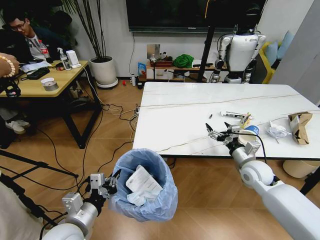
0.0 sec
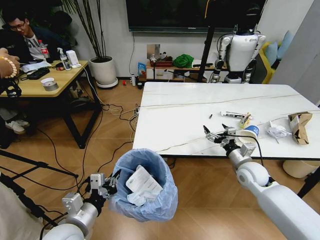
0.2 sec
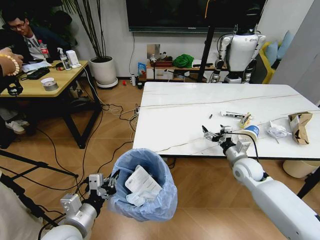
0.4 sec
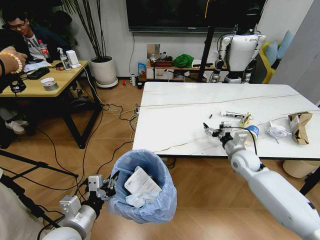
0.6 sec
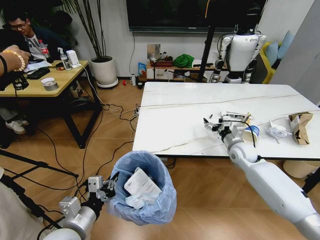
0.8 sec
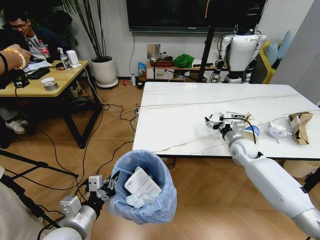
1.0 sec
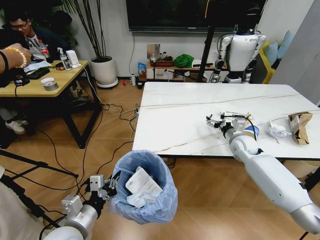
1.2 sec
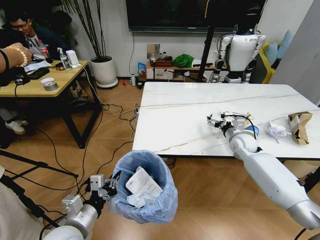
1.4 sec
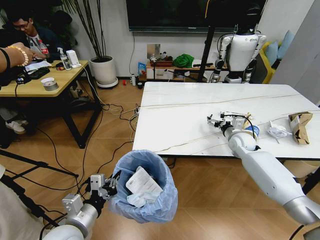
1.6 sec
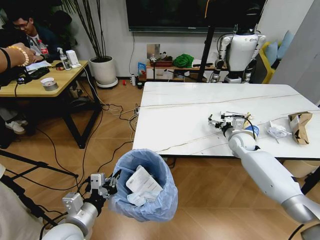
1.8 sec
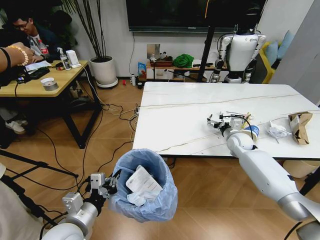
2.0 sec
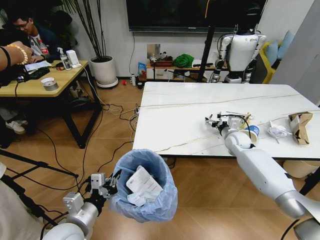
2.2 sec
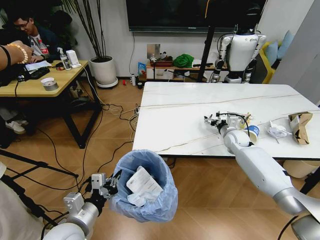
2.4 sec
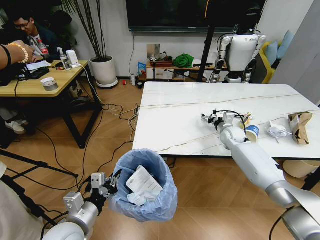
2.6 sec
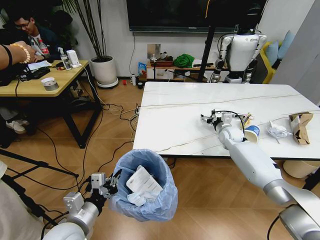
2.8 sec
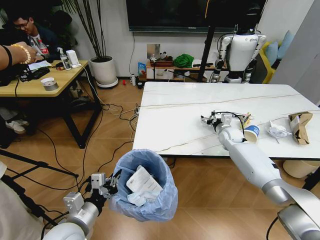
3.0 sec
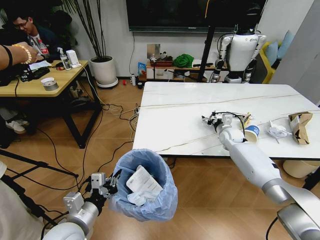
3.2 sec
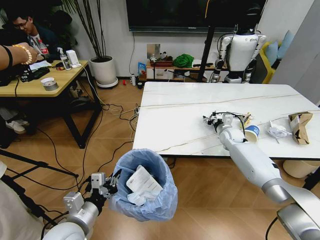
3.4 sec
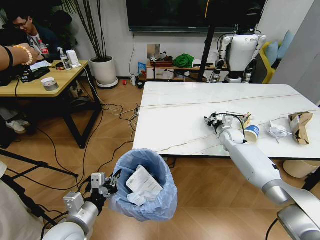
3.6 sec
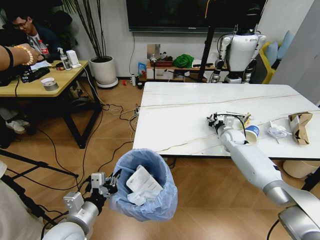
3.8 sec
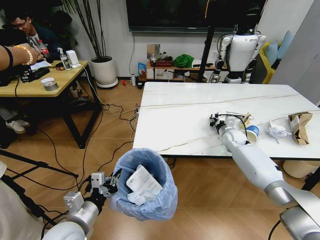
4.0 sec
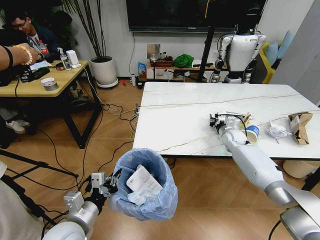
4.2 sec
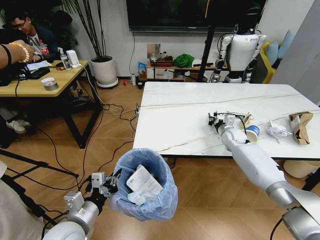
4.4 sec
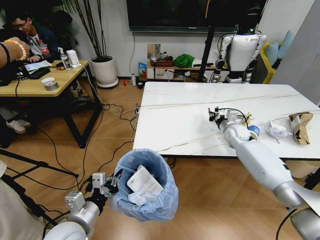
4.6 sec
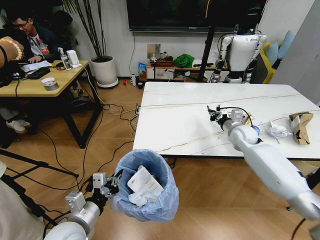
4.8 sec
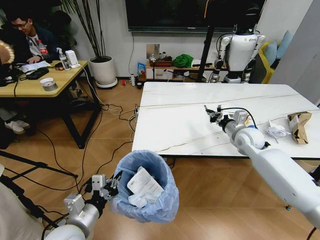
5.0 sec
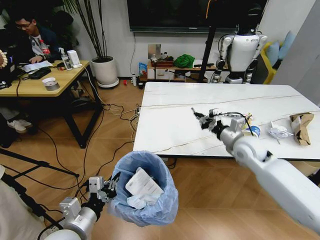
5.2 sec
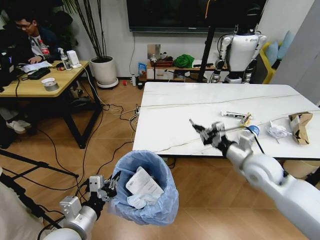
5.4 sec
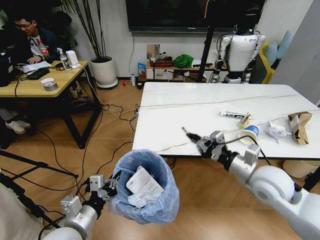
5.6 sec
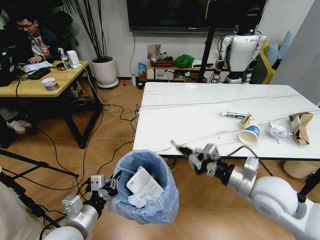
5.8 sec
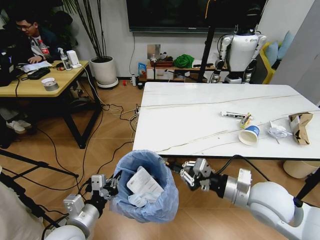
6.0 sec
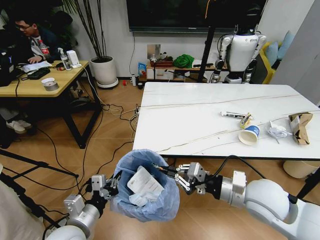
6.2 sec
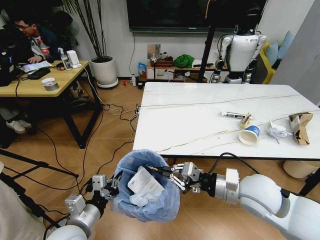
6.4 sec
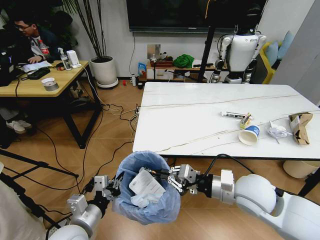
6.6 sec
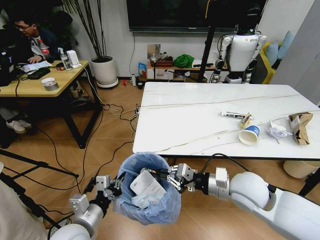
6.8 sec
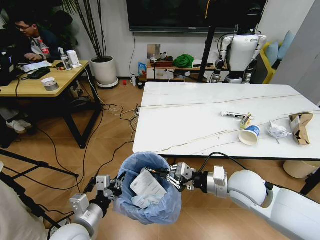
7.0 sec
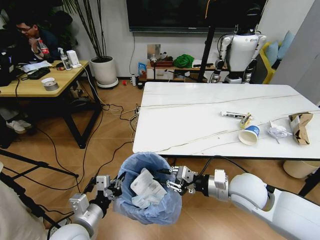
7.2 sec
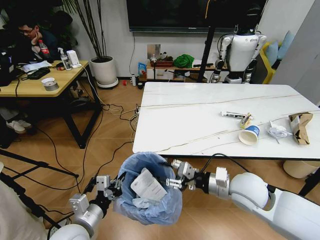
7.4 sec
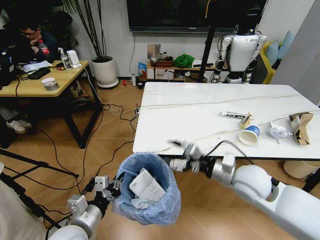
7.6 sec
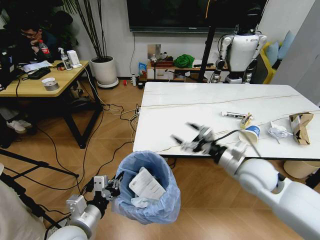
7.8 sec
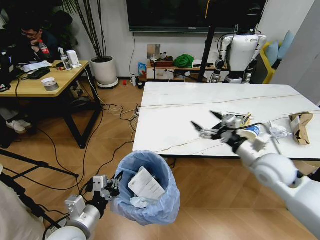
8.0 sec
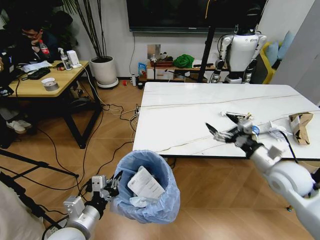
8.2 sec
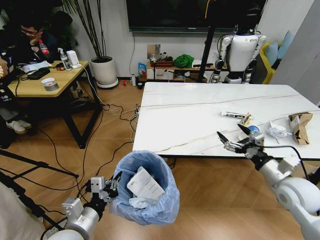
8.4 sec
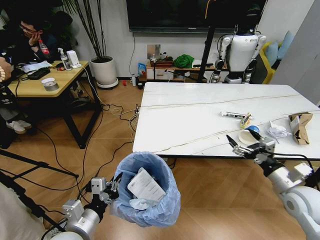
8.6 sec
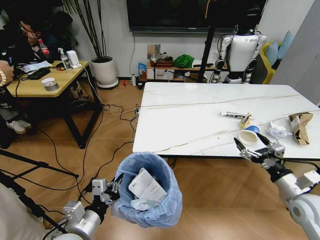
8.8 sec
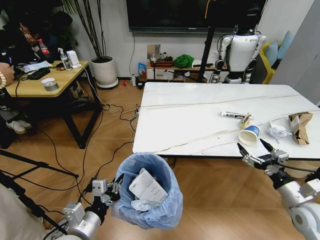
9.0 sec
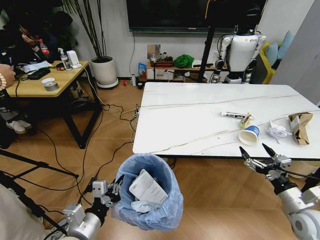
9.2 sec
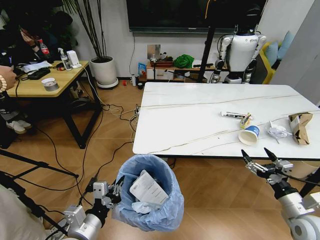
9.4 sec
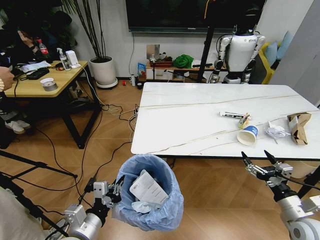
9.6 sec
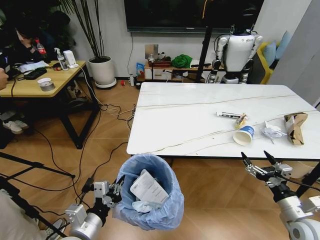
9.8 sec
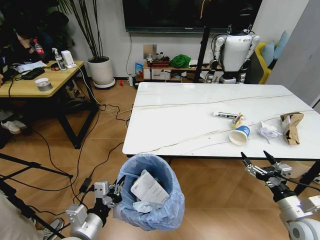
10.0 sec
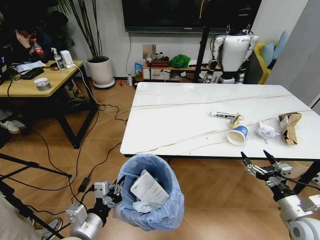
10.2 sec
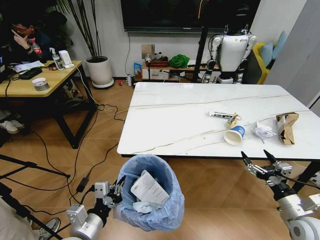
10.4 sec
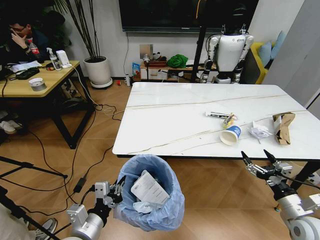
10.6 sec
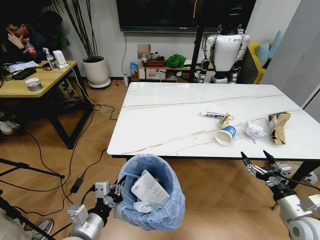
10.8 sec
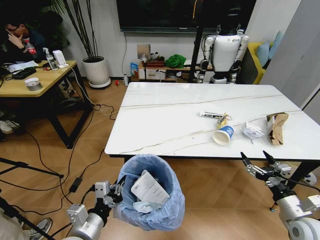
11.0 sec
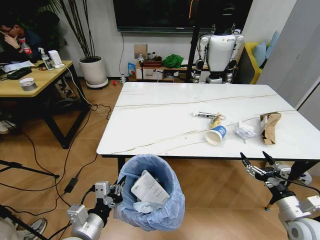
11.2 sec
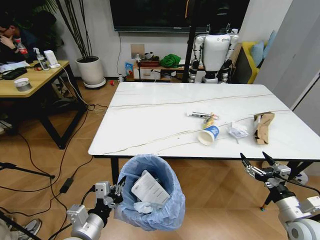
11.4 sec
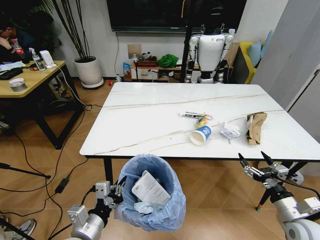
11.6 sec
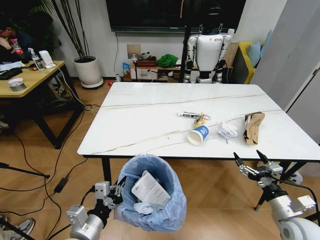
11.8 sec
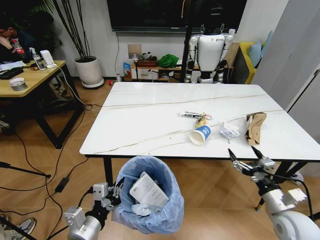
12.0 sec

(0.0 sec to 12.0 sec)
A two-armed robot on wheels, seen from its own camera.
Task of the whole recording: Pick up the trash bin and place the trash from the table into it.
0.0 sec - 1.6 sec: The right gripper shifts approximately 15 cm forward.
1.6 sec - 3.0 sec: The right gripper travels forward by some 5 cm.
3.0 sec - 4.4 sec: The right gripper closes.
4.4 sec - 6.0 sec: The right gripper goes roughly 30 cm backward.
6.0 sec - 7.6 sec: The right gripper shifts by roughly 5 cm, and opens.
7.6 sec - 9.0 sec: The right gripper shifts about 20 cm to the right, and opens.
10.4 sec - 12.0 sec: The right gripper moves approximately 5 cm.

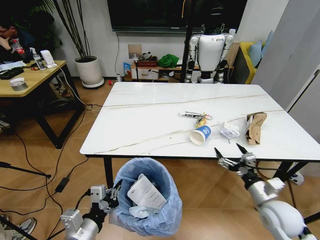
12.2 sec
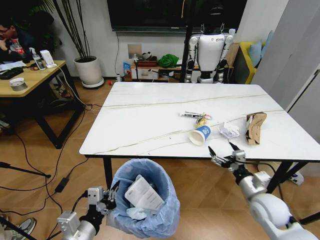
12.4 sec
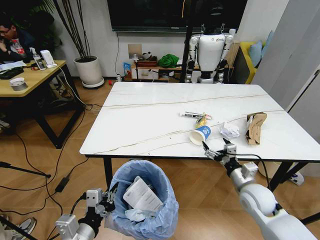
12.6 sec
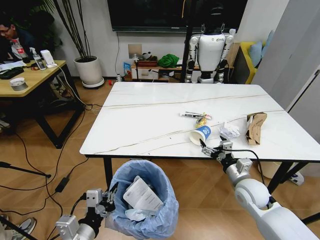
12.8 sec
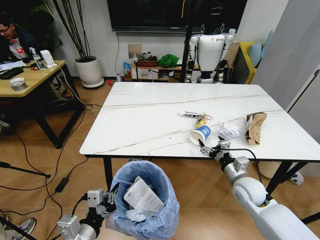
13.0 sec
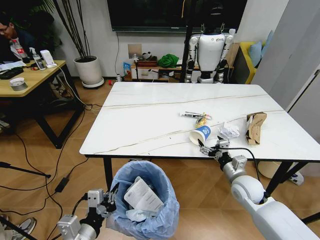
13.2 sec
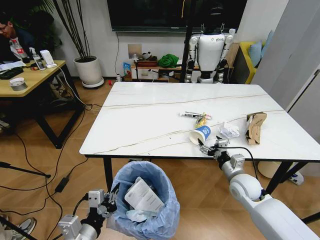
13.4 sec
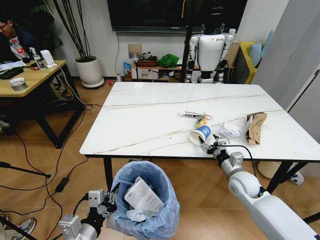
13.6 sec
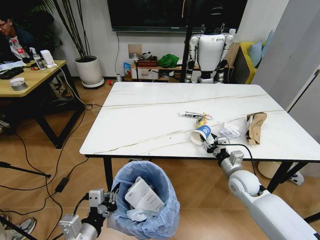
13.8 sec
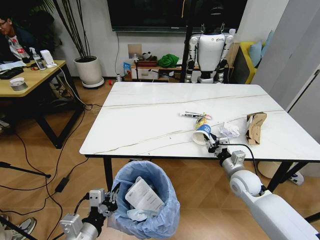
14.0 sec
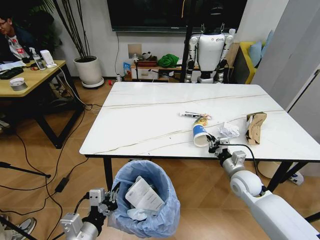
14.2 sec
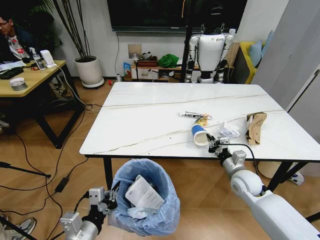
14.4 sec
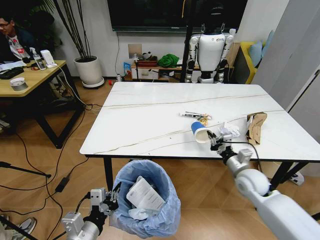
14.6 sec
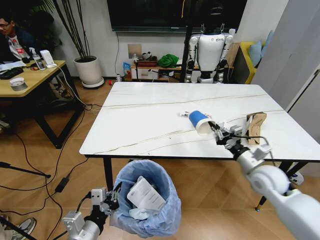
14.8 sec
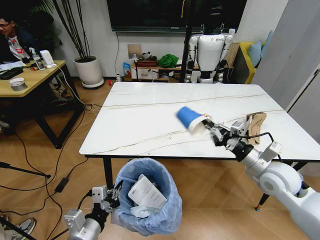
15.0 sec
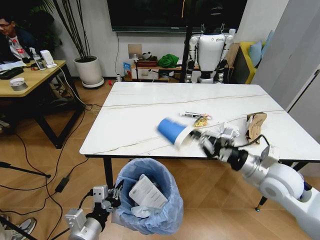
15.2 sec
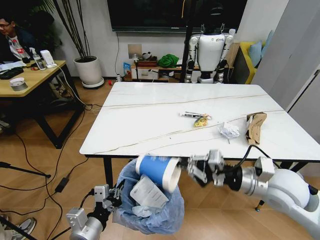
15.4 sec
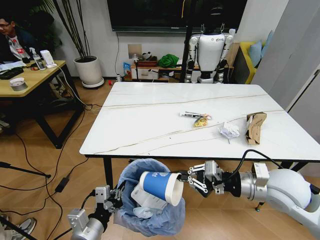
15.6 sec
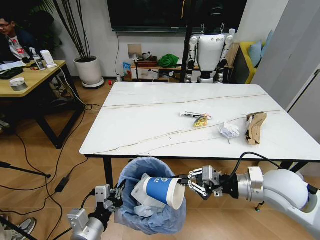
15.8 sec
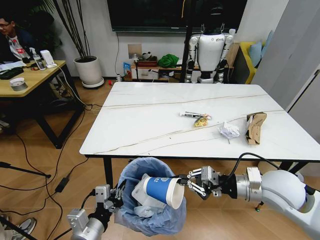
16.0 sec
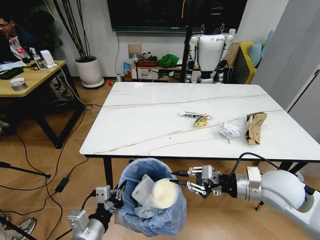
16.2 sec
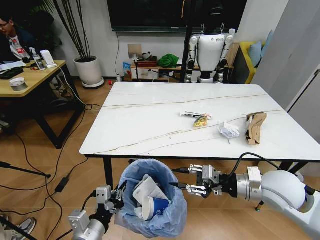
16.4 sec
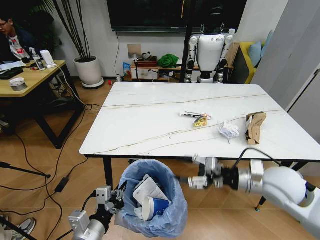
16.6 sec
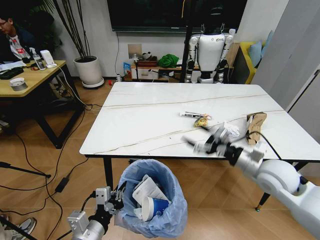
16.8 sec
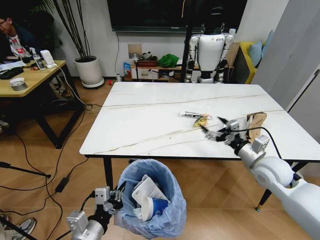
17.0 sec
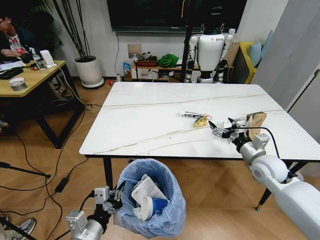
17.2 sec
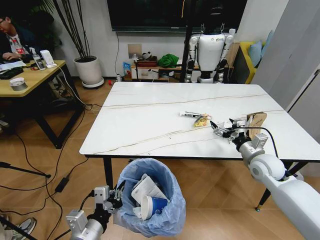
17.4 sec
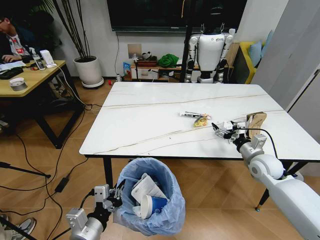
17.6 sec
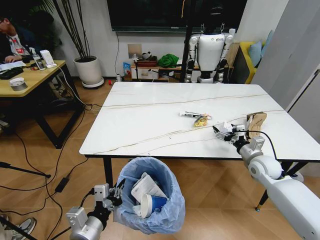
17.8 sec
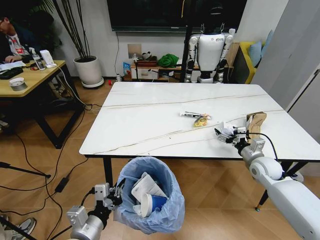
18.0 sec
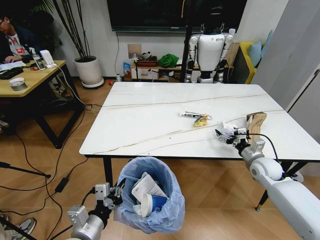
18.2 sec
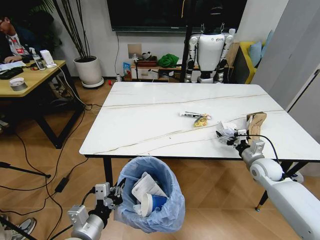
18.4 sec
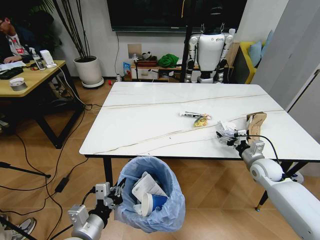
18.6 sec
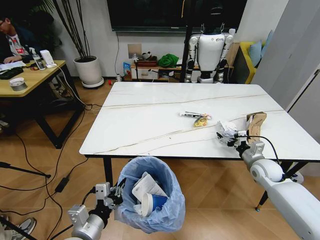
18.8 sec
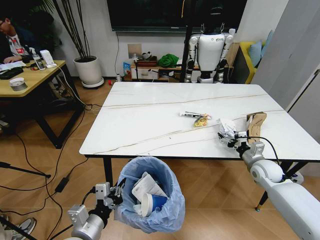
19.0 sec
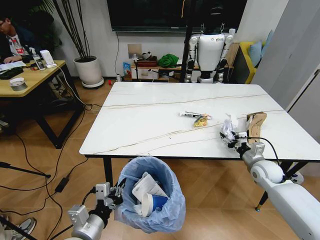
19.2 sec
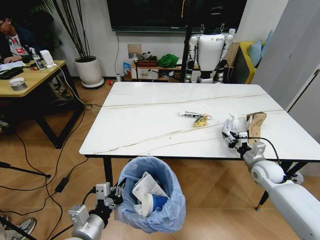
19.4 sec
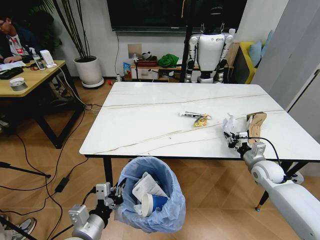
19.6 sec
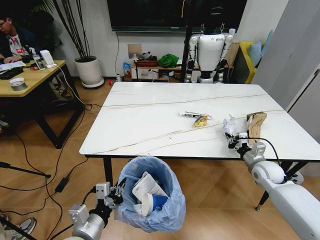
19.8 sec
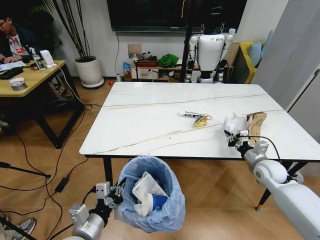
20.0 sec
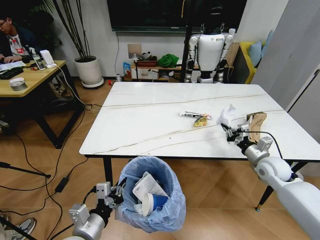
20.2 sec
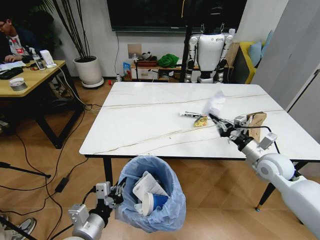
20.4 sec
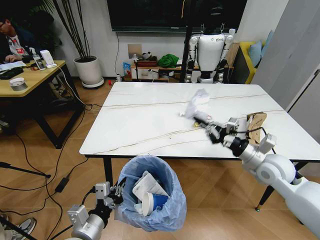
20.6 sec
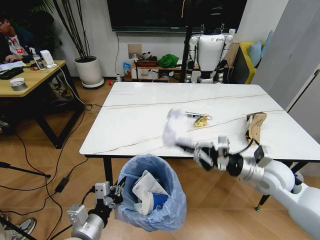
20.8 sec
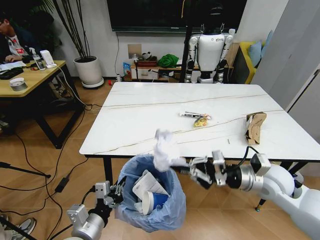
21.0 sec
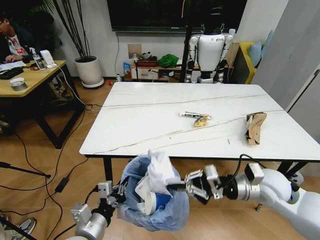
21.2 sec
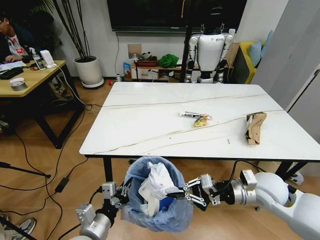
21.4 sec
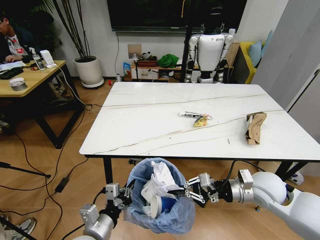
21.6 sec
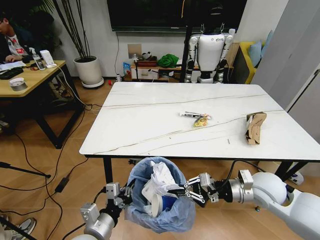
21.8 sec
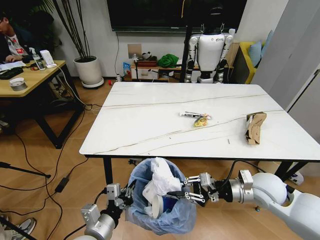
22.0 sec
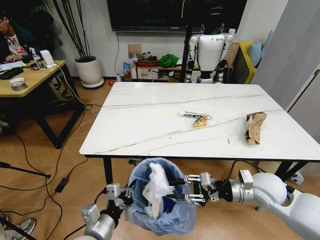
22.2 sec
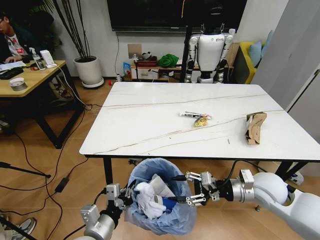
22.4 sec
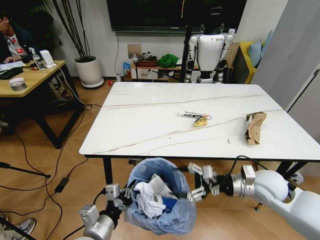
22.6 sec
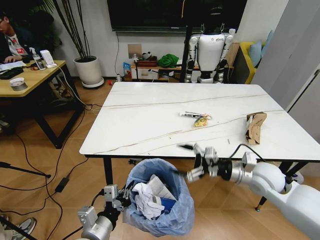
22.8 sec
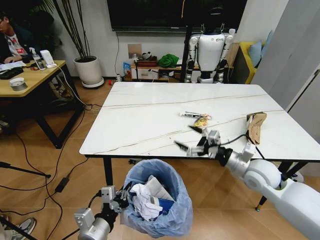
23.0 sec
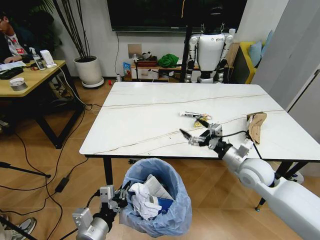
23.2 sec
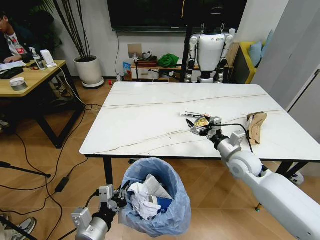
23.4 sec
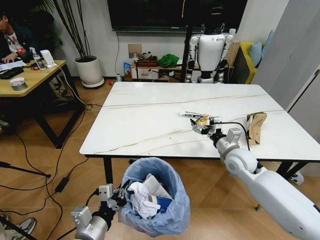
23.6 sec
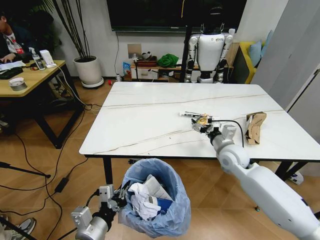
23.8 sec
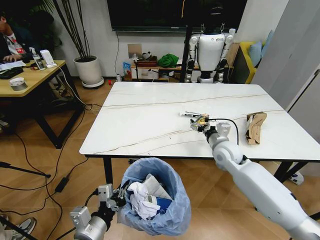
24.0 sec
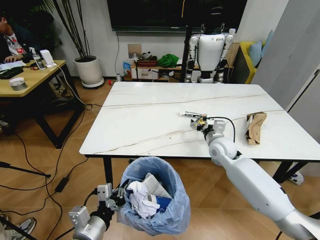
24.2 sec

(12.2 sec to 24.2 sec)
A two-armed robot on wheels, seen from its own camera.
Task of the whole recording: Pick up the trash bin and place the trash from the table into it.
12.2 sec - 13.8 sec: The right gripper is displaced forward and to the left by about 15 cm, and closes up.
13.8 sec - 15.2 sec: The right gripper travels upward and backward by roughly 15 cm, and closes.
15.2 sec - 16.6 sec: The right gripper opens up.
16.6 sec - 18.2 sec: The right gripper shifts approximately 20 cm downward, forward and to the right, and opens its fingers.
18.2 sec - 19.8 sec: The right gripper closes its fingers.
19.8 sec - 21.2 sec: The right gripper heads upward, to the left and backward, covering roughly 20 cm.
21.2 sec - 22.6 sec: The right gripper opens.
22.6 sec - 24.2 sec: The right gripper is displaced forward and to the left by roughly 15 cm.
